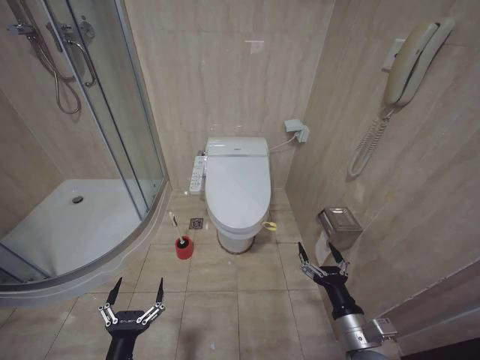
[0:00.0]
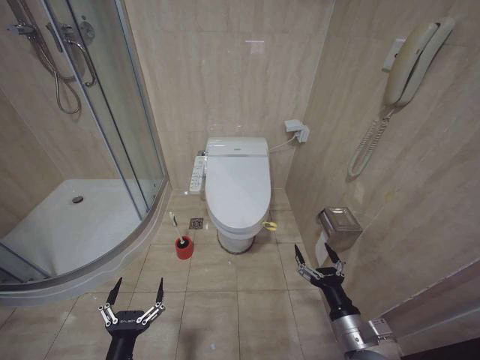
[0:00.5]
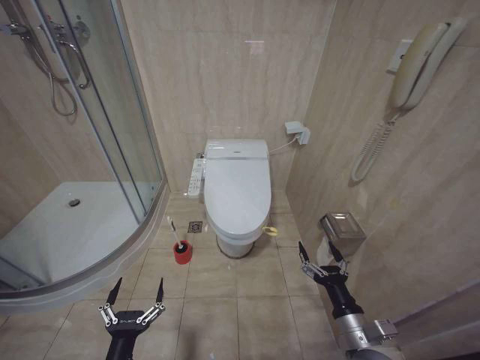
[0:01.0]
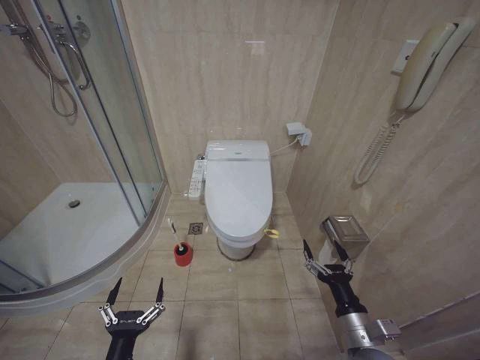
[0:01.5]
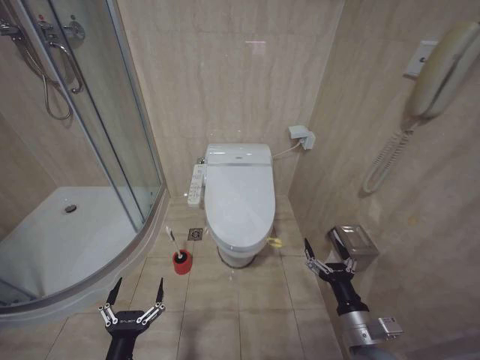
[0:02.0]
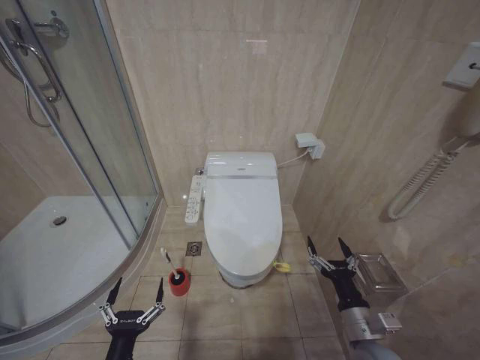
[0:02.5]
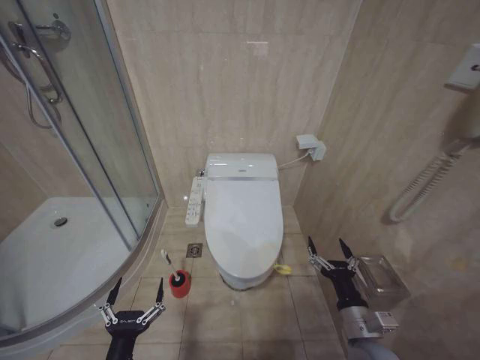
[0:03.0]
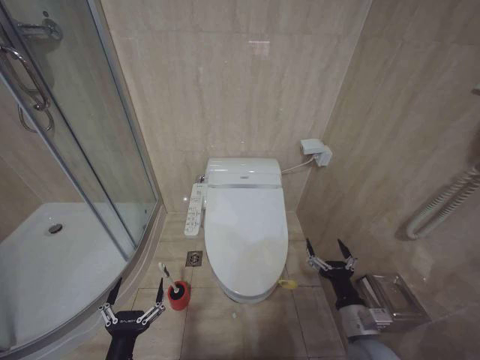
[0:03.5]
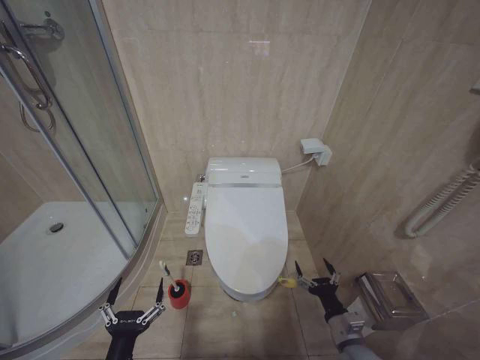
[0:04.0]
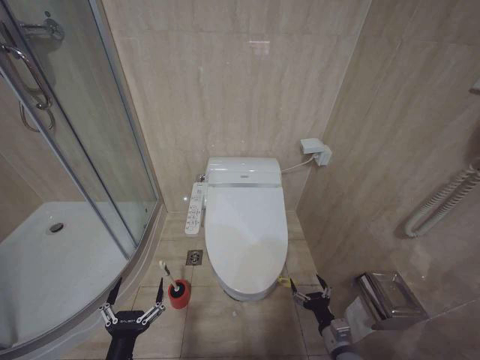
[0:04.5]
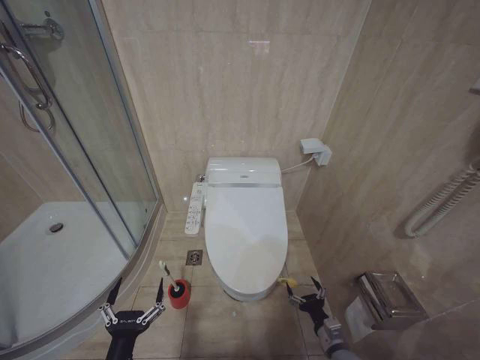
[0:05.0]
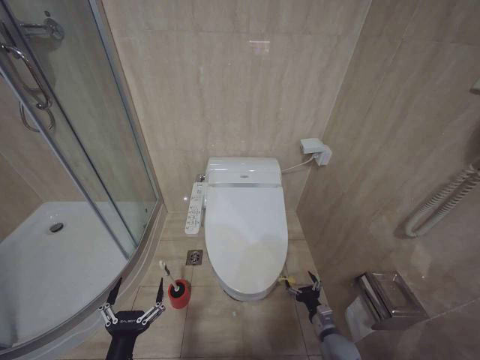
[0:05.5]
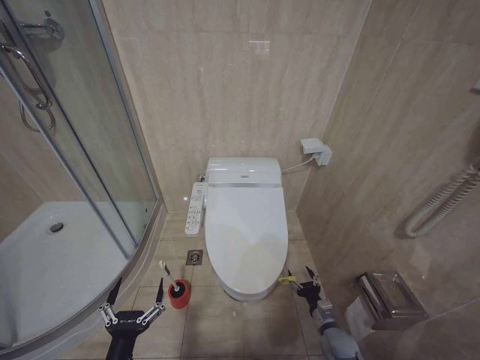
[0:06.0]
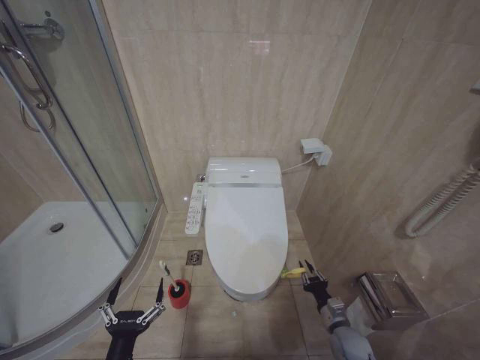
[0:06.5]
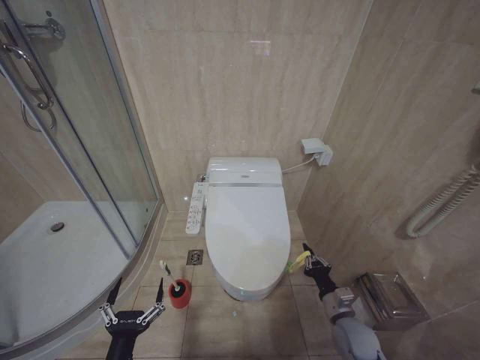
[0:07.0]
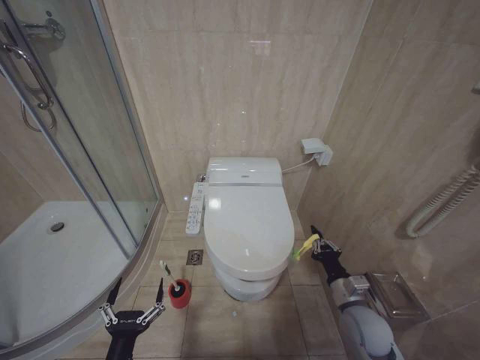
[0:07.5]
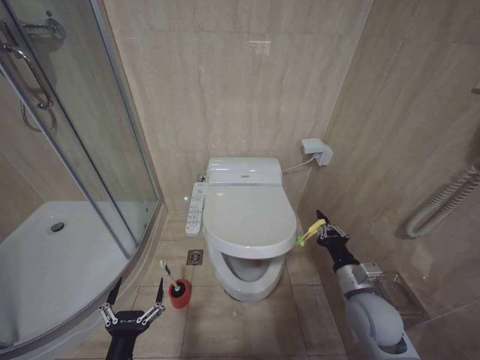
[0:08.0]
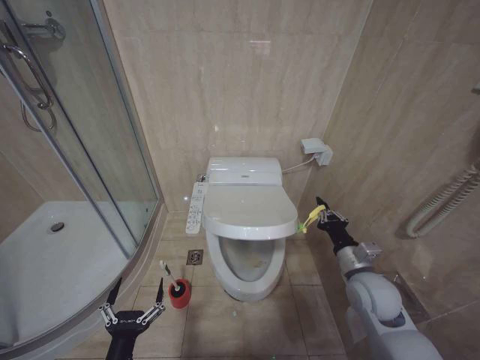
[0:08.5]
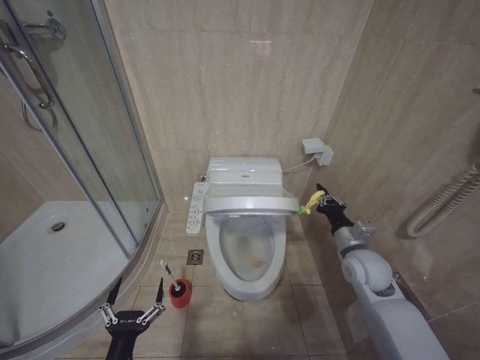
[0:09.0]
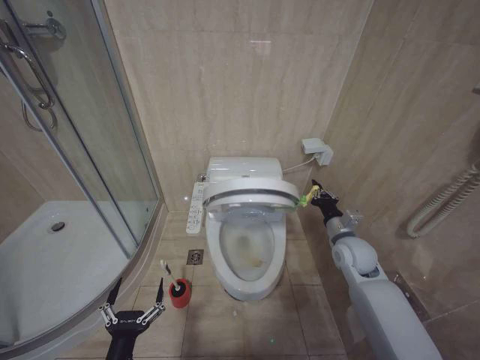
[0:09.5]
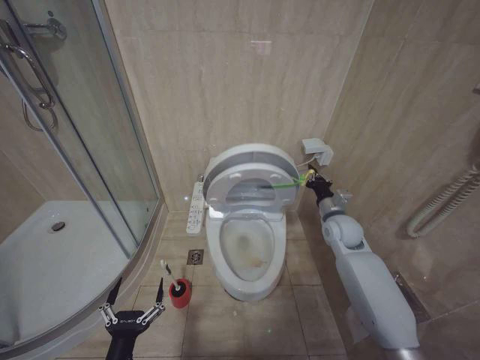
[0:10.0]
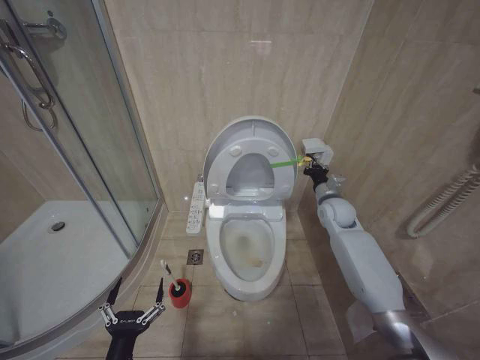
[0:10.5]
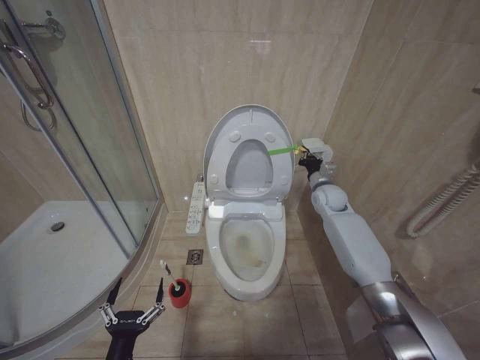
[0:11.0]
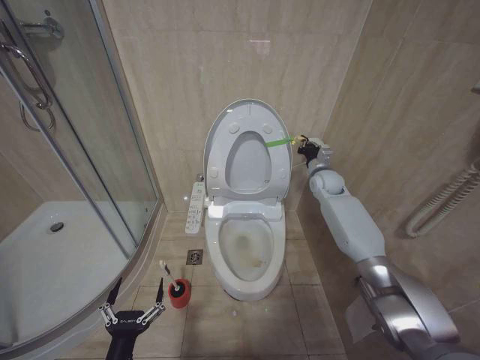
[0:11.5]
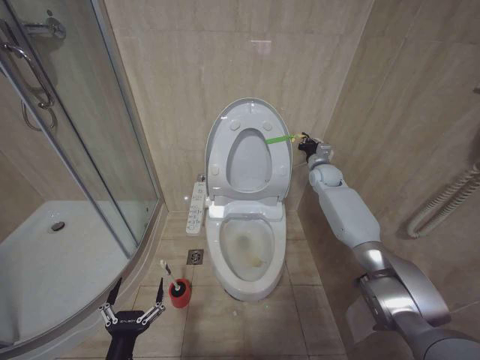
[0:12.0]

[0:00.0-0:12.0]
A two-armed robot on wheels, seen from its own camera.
Task of the whole recording: Open the toilet lid, clean the toilet bowl with a toilet brush, close the toilet lid, and flush.
2.0 to 4.0 s: The right gripper goes approximately 10 cm downward.
4.0 to 6.0 s: The right gripper travels downward and forward by about 15 cm.
6.0 to 8.0 s: The right gripper heads upward, covering roughly 25 cm, and closes up.
8.0 to 10.0 s: The right gripper goes roughly 20 cm forward.
10.0 to 12.0 s: The right gripper is displaced forward and upward by approximately 20 cm.

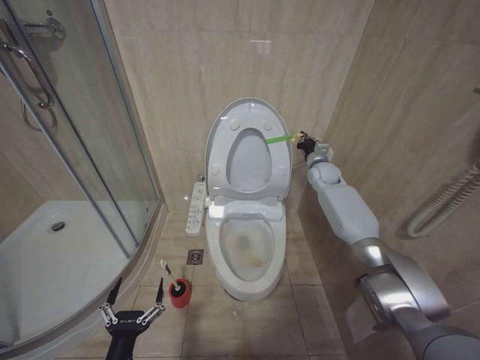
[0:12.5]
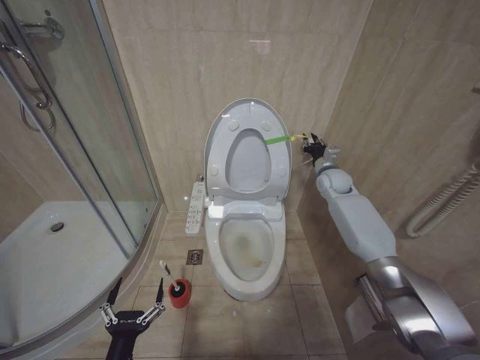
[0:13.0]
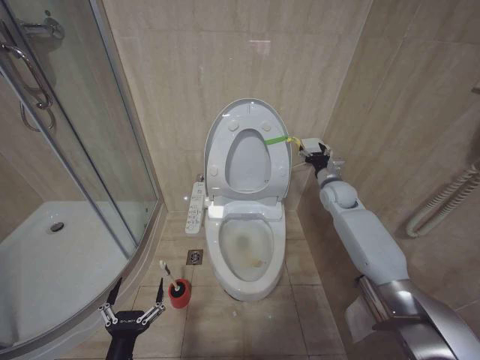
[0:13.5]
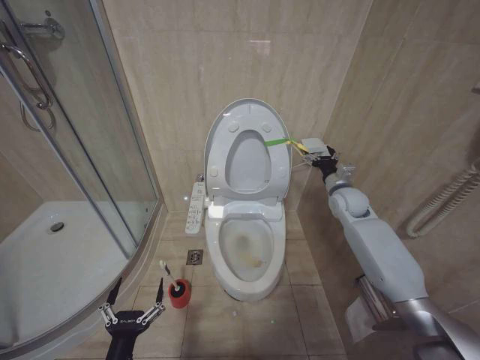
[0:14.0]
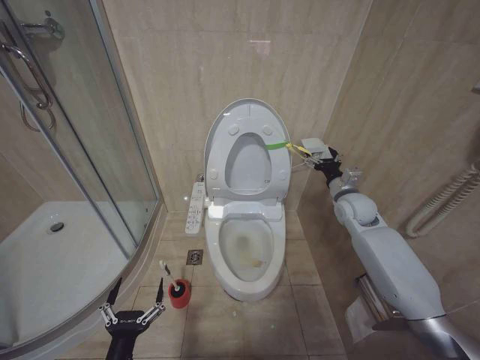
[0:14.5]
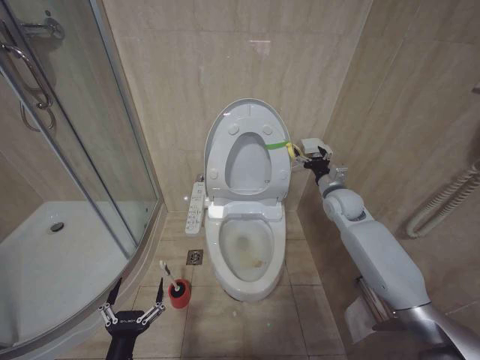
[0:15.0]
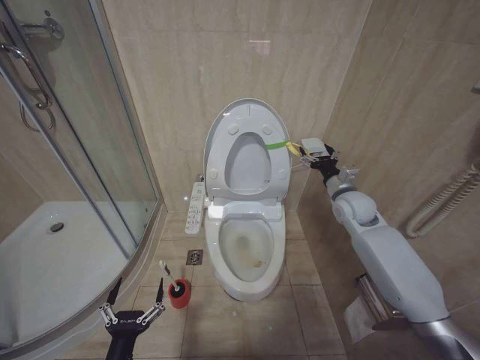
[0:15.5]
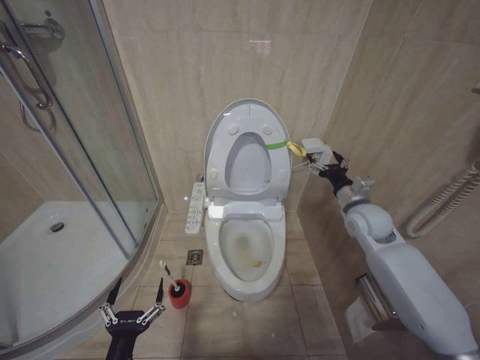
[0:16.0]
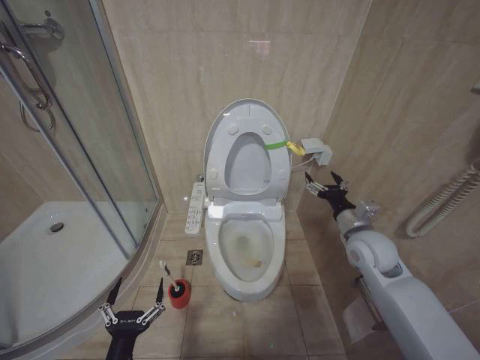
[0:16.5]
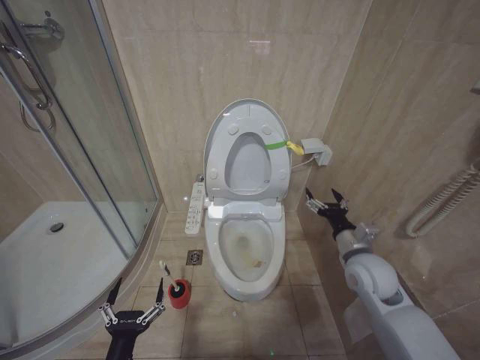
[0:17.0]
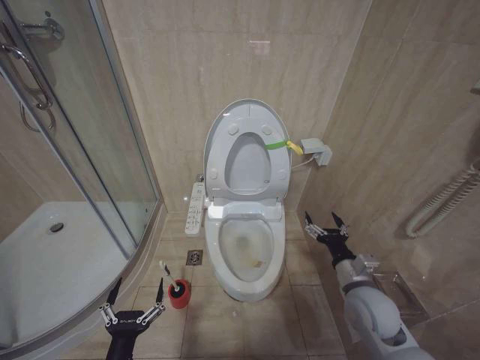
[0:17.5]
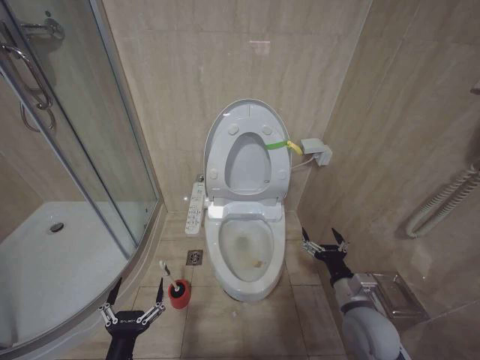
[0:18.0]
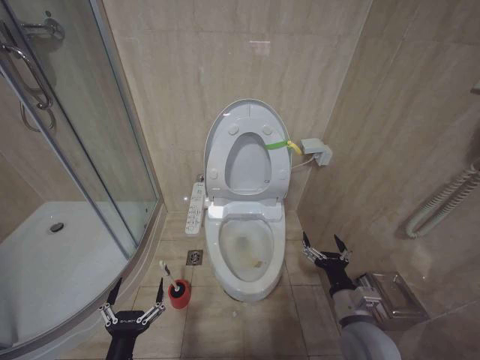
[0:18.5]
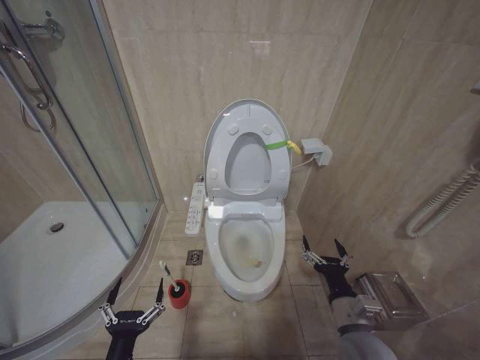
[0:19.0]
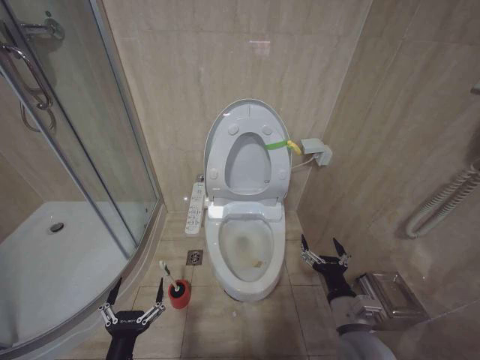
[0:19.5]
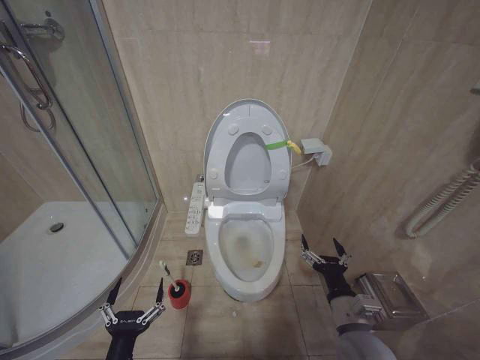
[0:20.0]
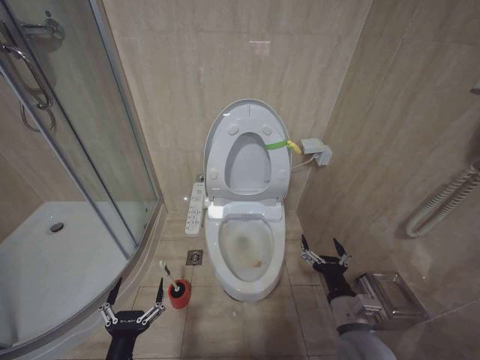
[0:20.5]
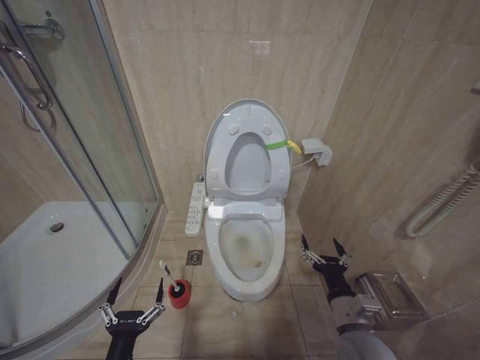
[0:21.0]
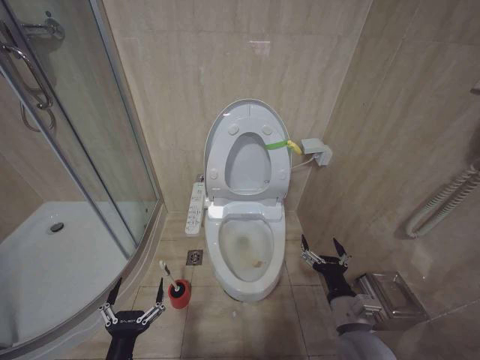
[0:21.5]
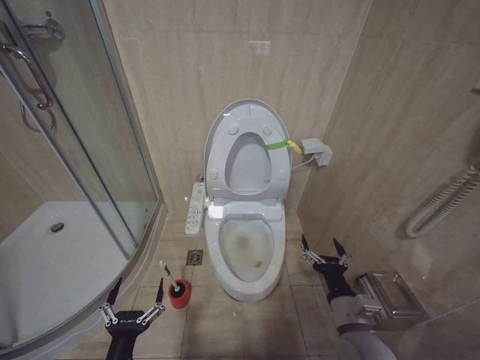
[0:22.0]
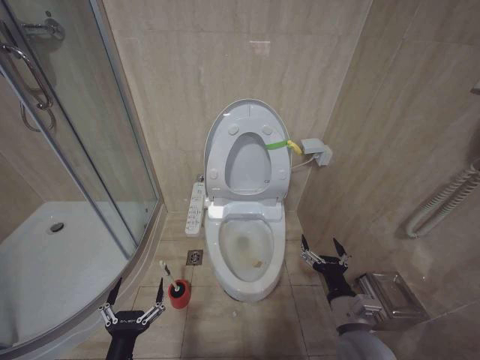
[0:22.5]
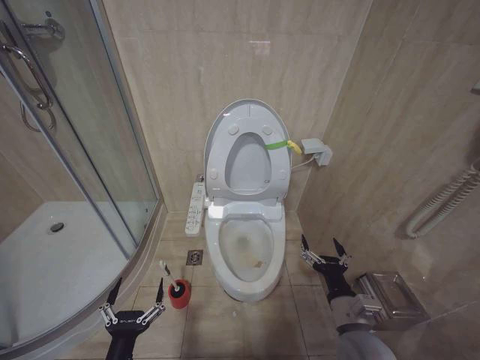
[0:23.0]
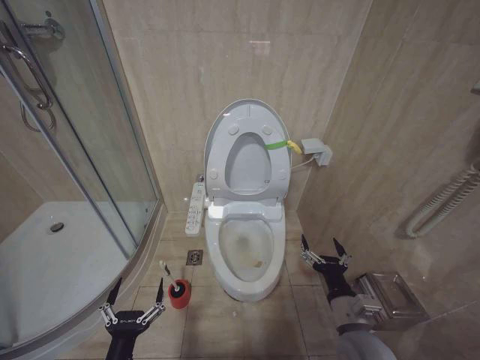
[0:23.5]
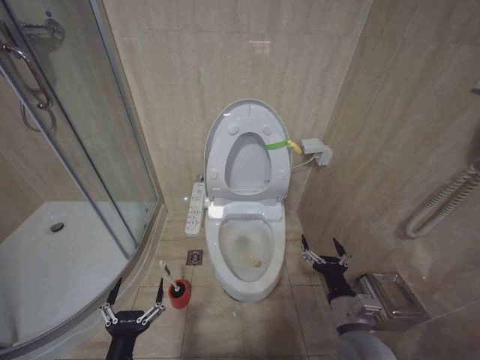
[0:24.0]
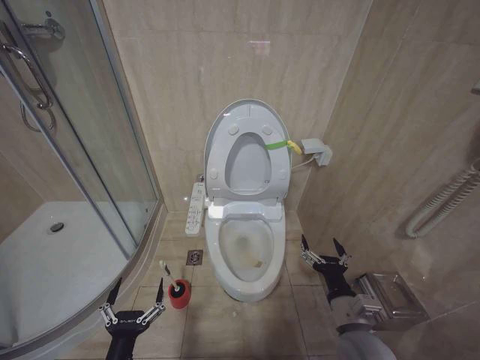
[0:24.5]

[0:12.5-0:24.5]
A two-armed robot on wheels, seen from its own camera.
Task of the whole recording: Open the toilet lid, clean the toilet bowl with a toilet brush, close the toilet lid, and flush.
12.5 to 14.5 s: The right gripper travels backward by about 15 cm, and opens up.
14.5 to 16.5 s: The right gripper is displaced backward by some 10 cm.
16.5 to 18.5 s: The right gripper travels backward and downward by about 20 cm.
18.5 to 20.5 s: The grippers stay close to where they were, moving slightly.
20.5 to 24.5 s: Neither gripper changes place.

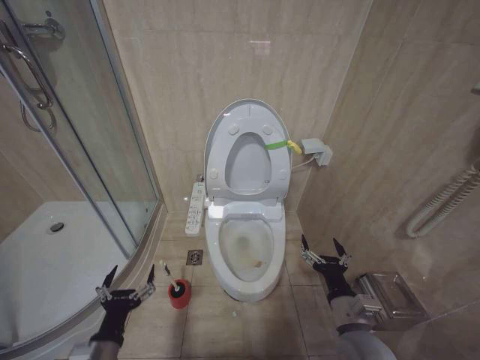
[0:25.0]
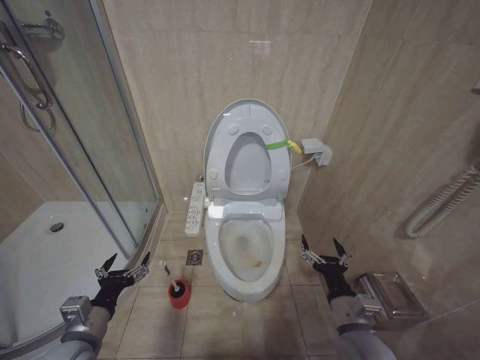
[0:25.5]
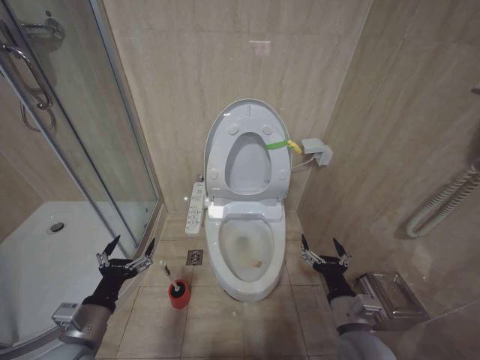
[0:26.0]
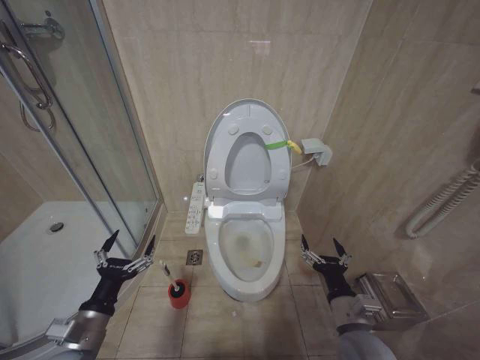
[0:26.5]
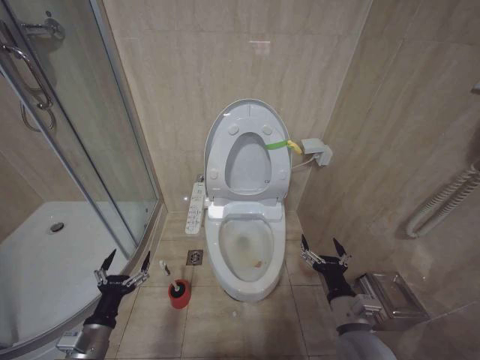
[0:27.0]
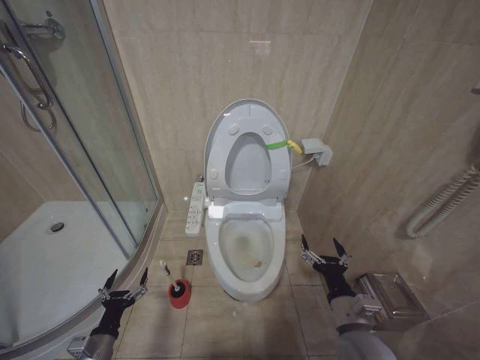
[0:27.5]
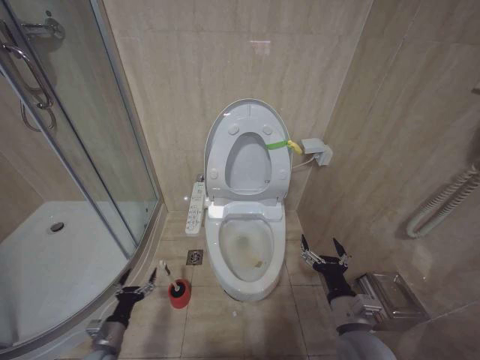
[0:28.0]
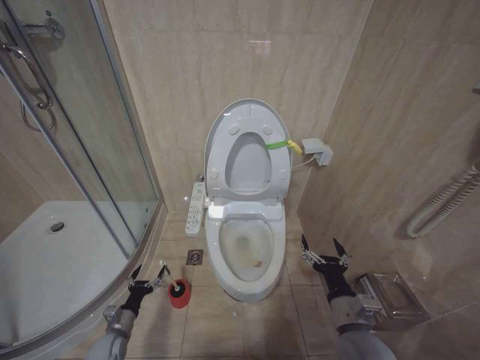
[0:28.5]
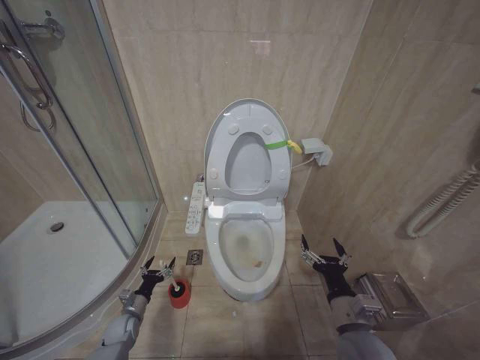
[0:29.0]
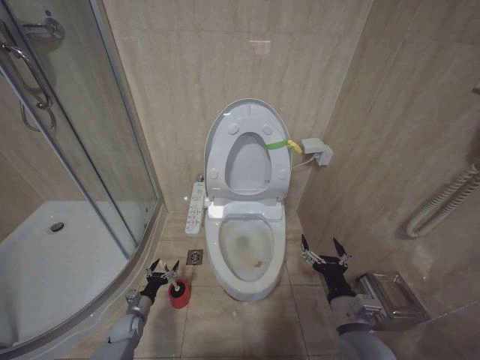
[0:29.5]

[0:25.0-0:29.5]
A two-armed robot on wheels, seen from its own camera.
Task of the whole recording: Open the toilet lid, clean the toilet bowl with a toilet brush, close the toilet lid, and flush.
25.0 to 27.0 s: The left gripper shifts some 5 cm to the left.
27.0 to 29.5 s: The left gripper travels downward and forward by some 25 cm.
